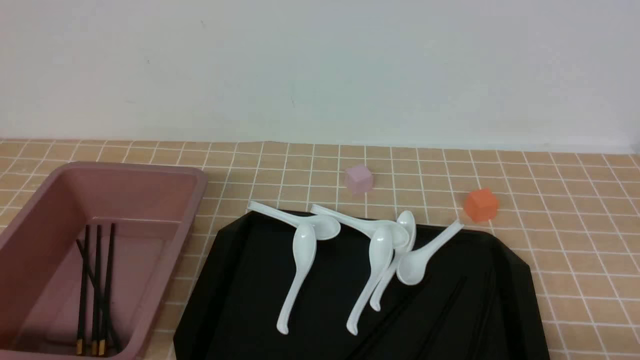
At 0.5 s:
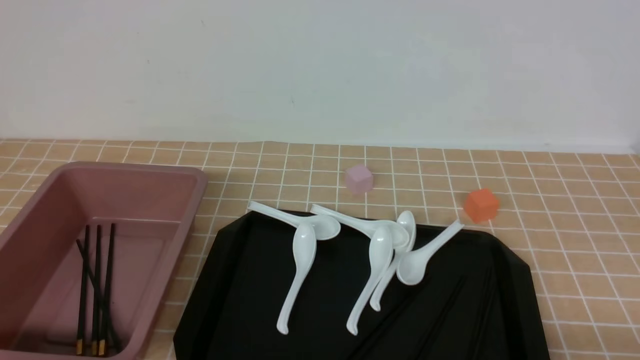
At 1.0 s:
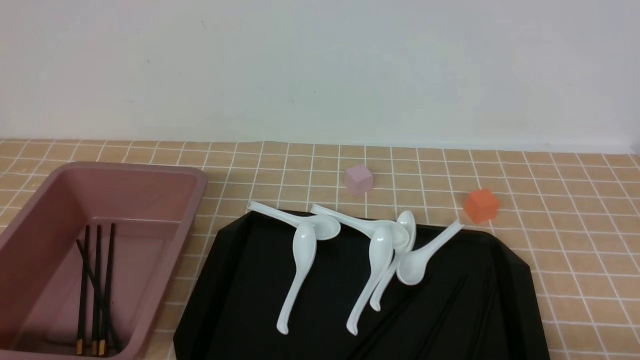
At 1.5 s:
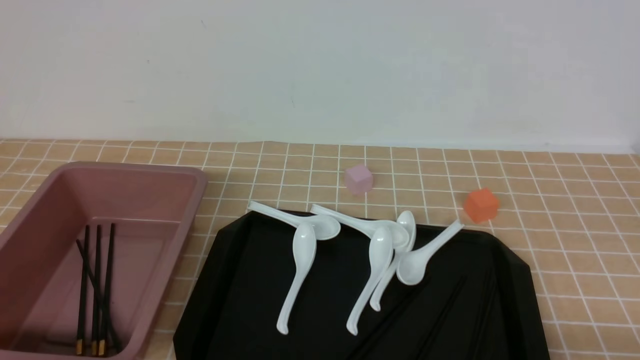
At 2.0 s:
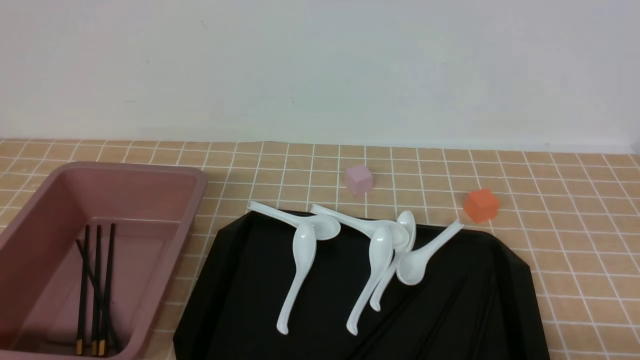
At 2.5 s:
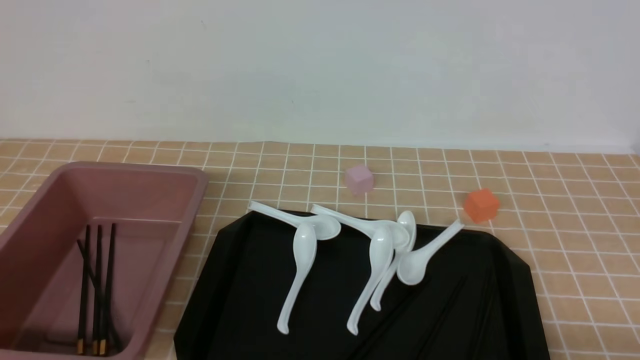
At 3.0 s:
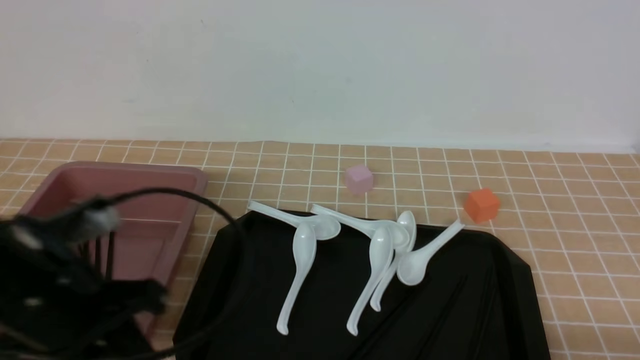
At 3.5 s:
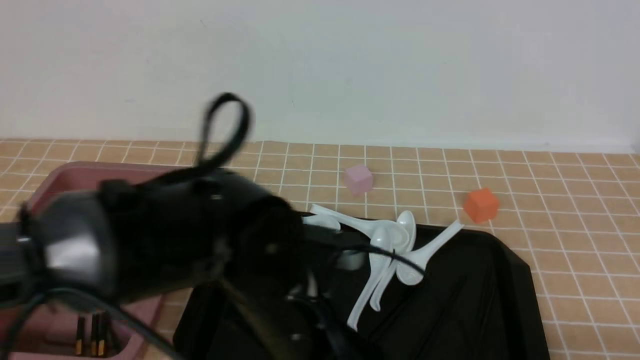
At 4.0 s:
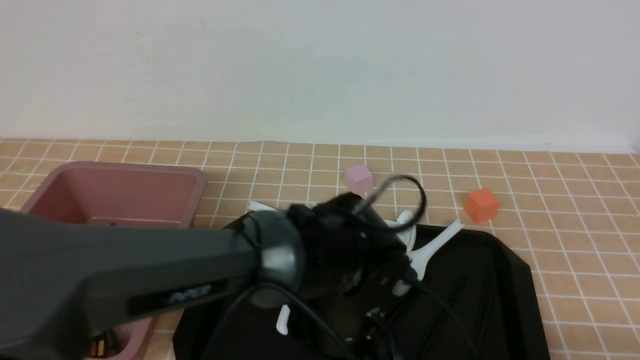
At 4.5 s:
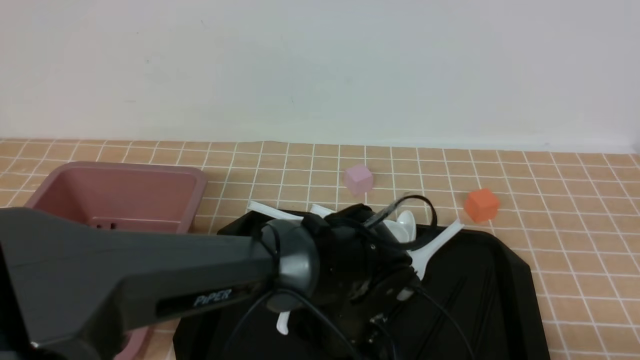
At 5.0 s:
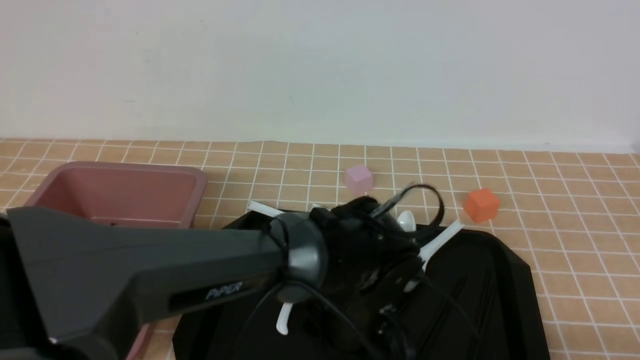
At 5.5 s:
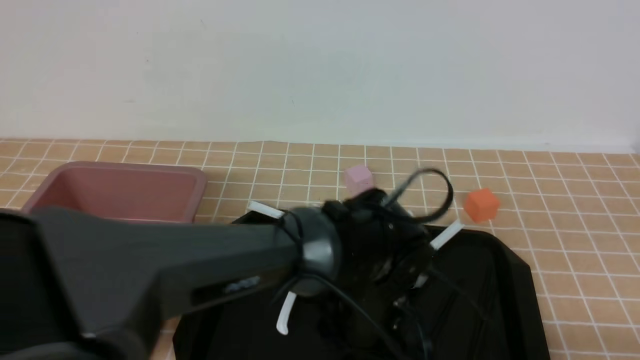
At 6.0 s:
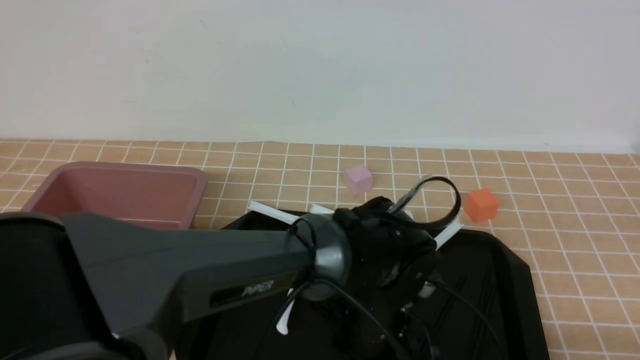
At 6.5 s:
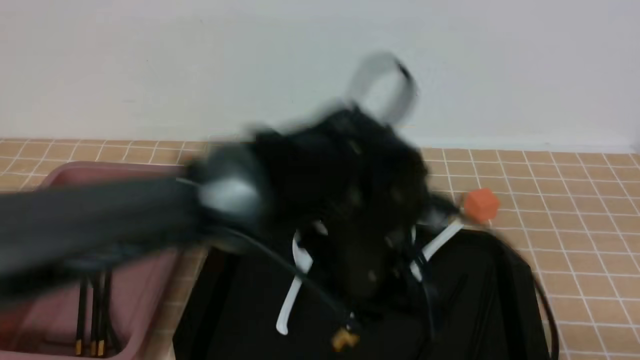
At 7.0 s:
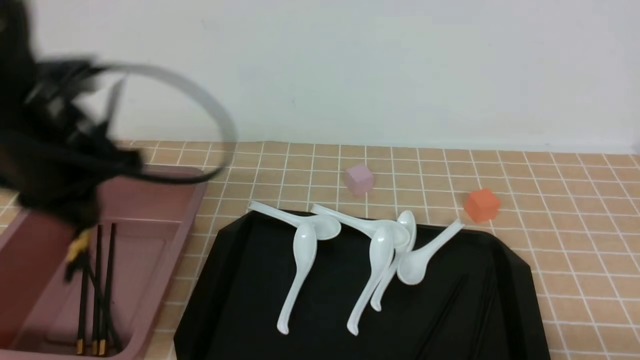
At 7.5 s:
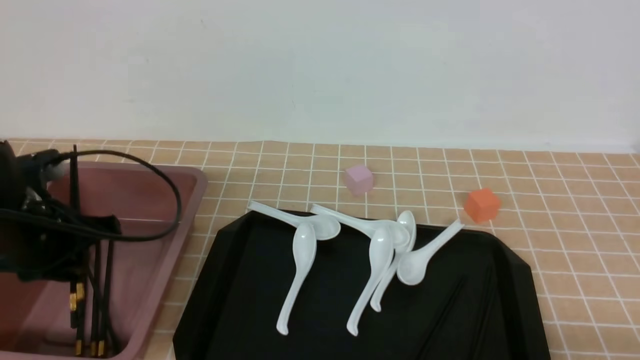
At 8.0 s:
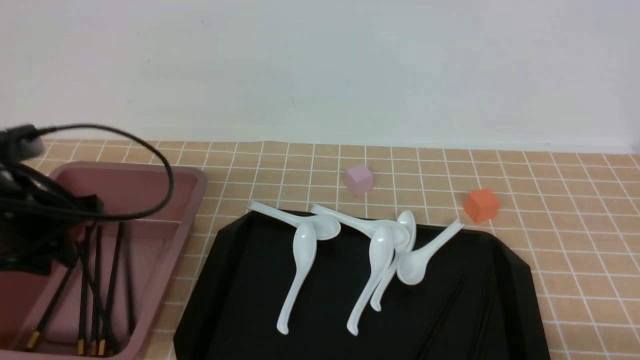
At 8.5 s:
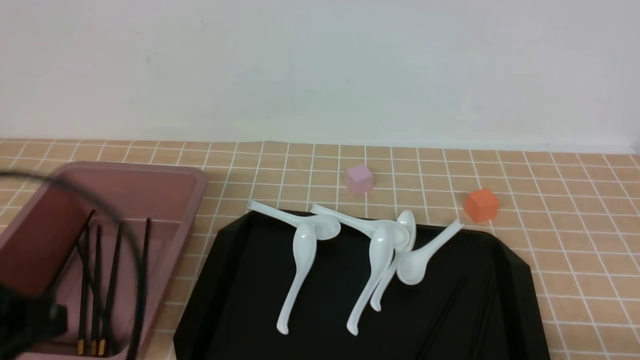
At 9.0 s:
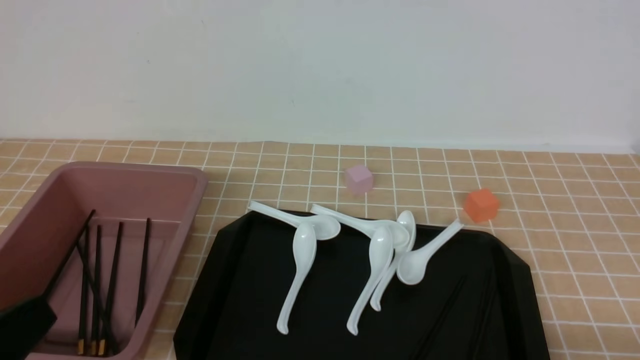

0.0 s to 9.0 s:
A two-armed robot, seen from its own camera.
Step, 0.0 to 6.0 s: use the left arm to grab a pair of chopsticks.
Step, 7.0 to 8.0 s: use the left arm to put the chopsticks into the lunch box.
2.0 to 4.5 s: The left gripper shifts some 35 cm to the right and forward, and opens.
4.5 to 7.0 s: The left gripper goes some 30 cm to the left and upward, and closes its fingers.
7.0 to 9.0 s: The left gripper goes some 25 cm backward.

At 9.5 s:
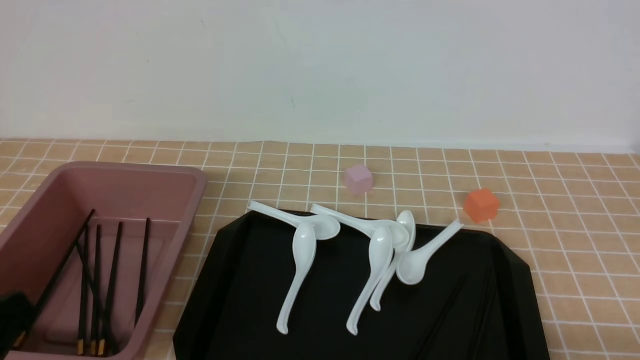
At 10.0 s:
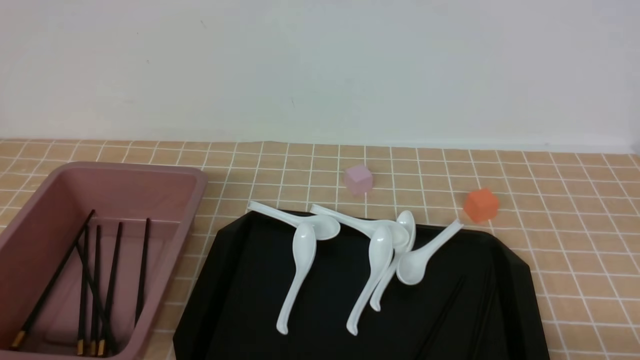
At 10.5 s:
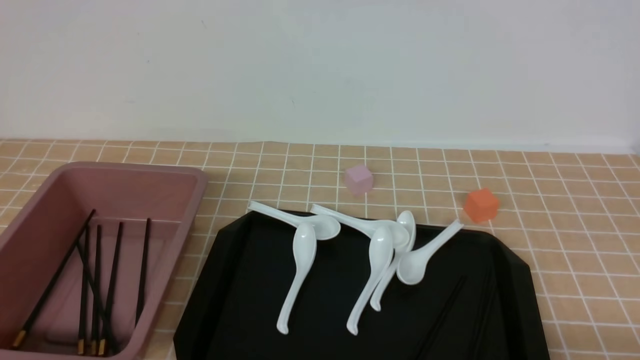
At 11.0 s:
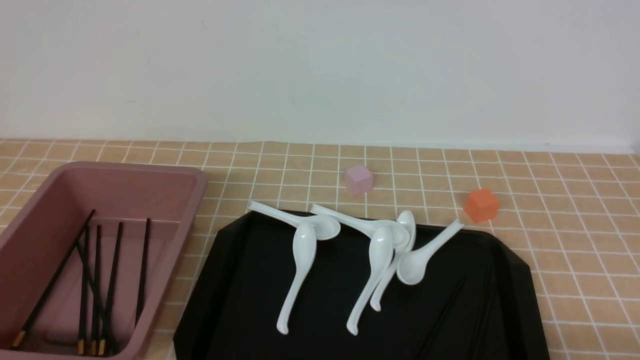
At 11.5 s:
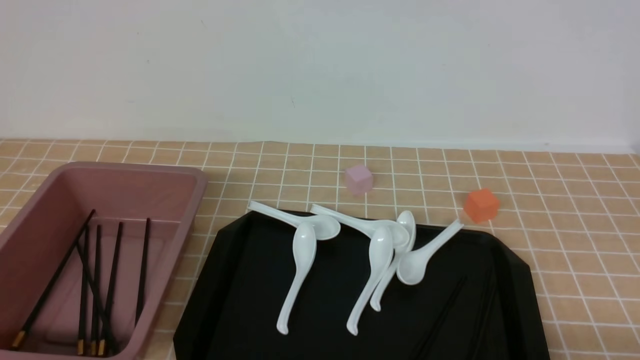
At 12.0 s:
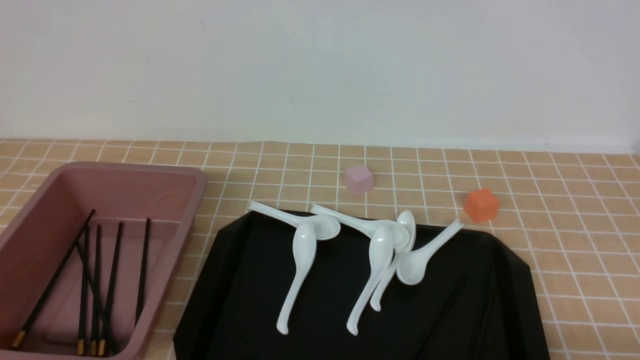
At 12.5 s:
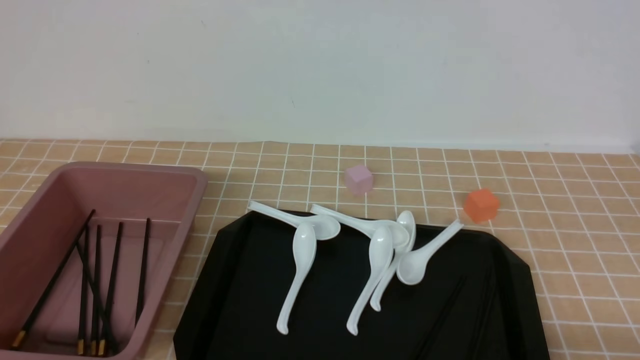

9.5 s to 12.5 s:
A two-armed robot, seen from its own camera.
11.0 to 12.5 s: Both grippers stay about where they are.
